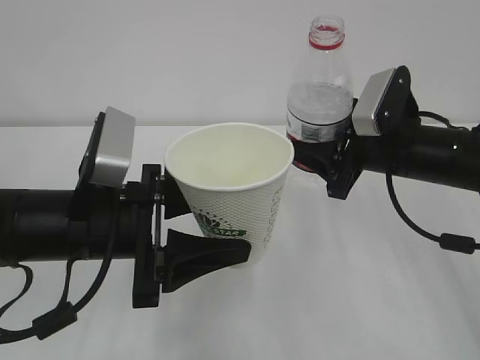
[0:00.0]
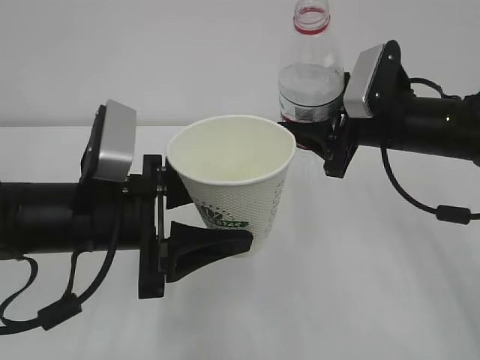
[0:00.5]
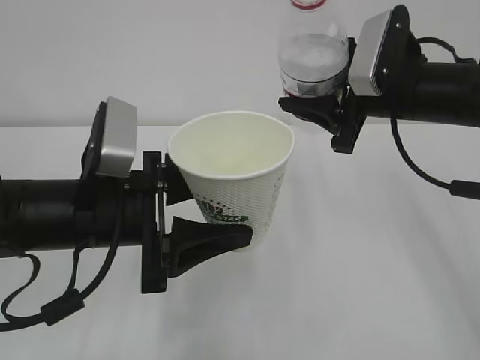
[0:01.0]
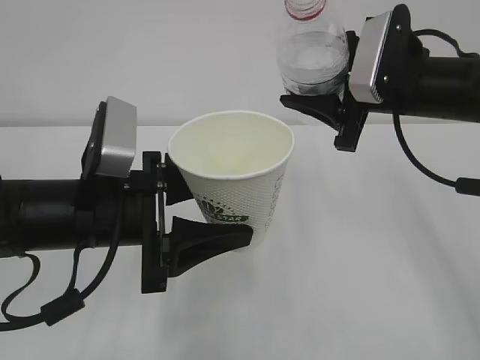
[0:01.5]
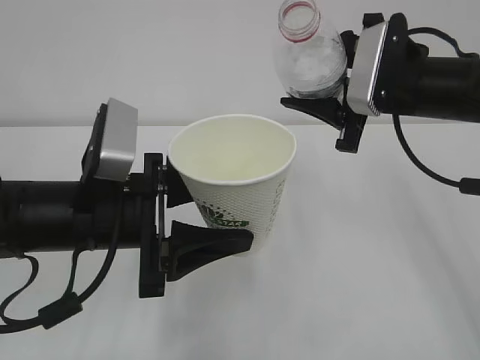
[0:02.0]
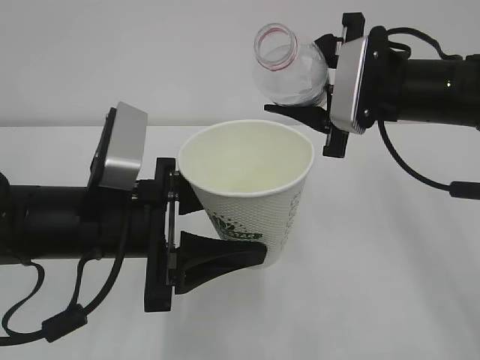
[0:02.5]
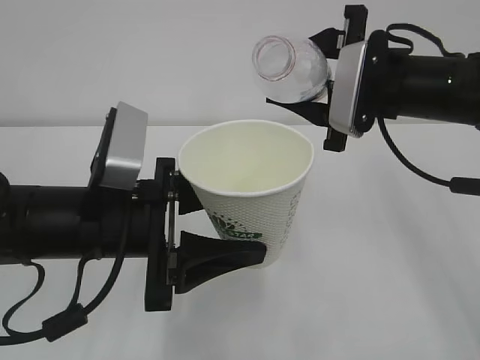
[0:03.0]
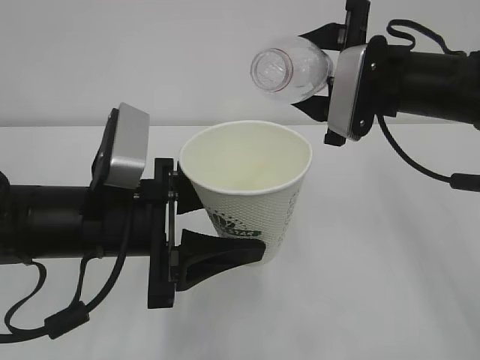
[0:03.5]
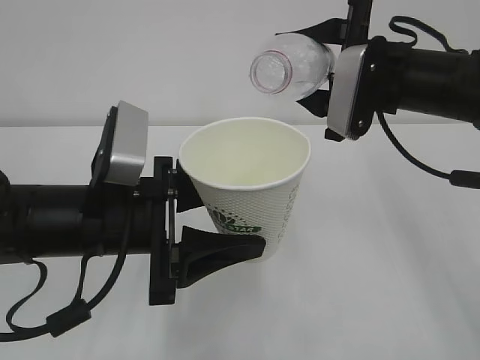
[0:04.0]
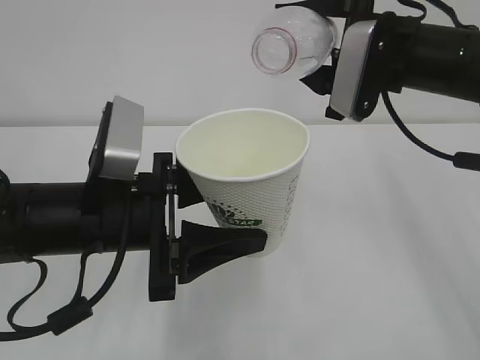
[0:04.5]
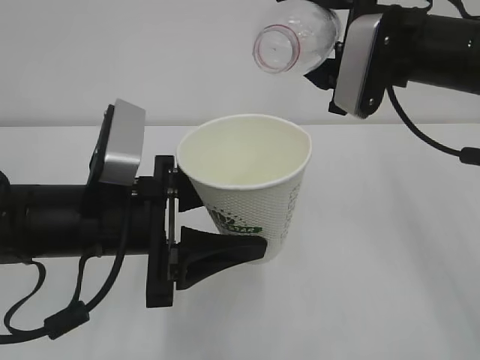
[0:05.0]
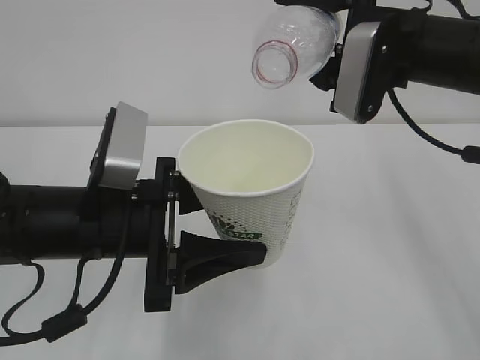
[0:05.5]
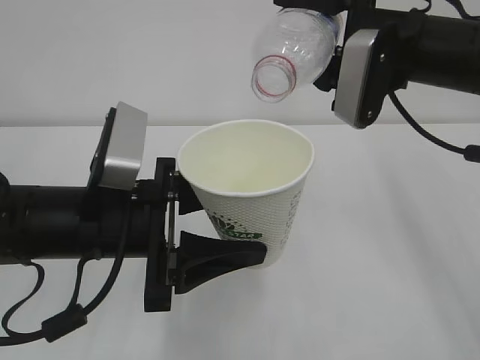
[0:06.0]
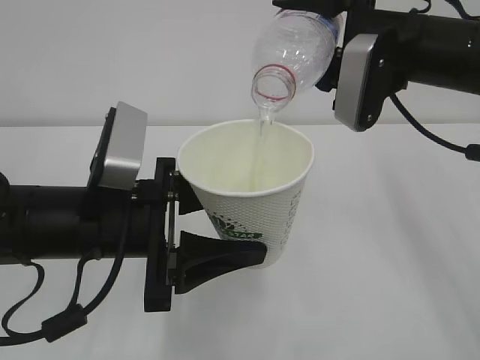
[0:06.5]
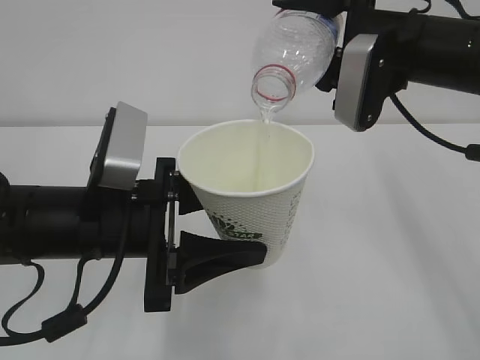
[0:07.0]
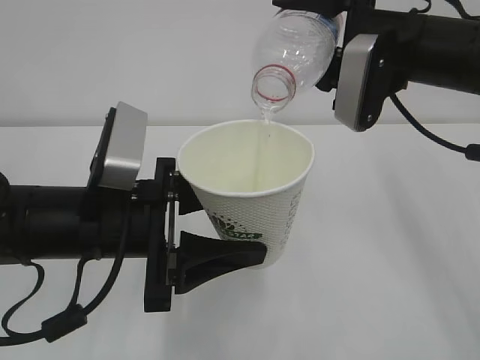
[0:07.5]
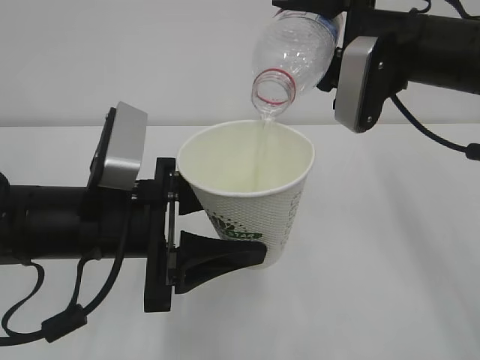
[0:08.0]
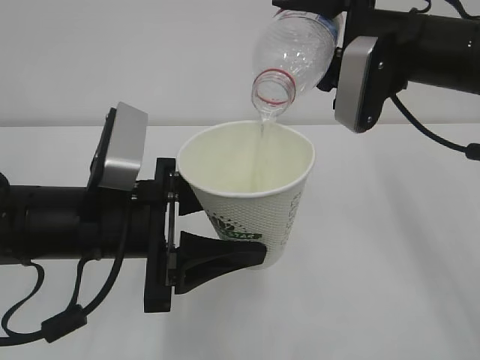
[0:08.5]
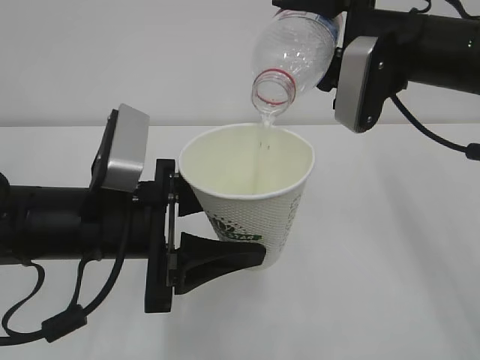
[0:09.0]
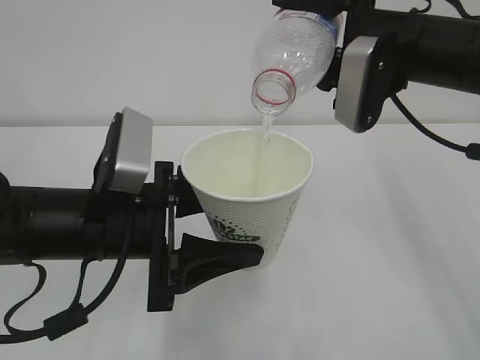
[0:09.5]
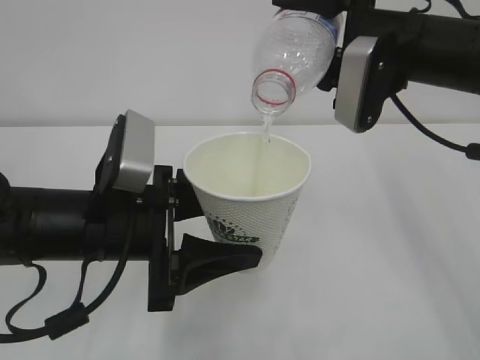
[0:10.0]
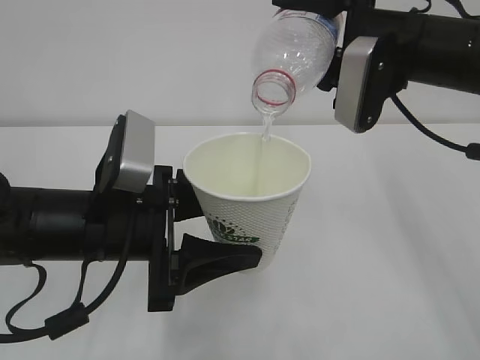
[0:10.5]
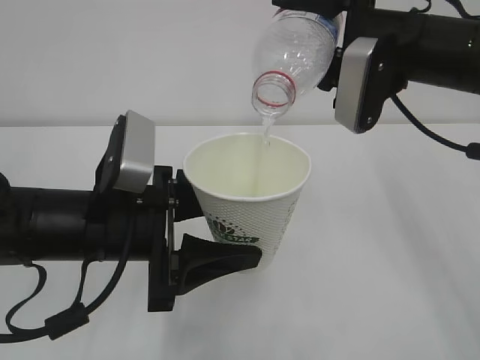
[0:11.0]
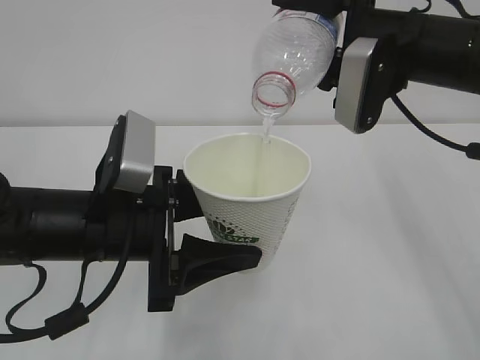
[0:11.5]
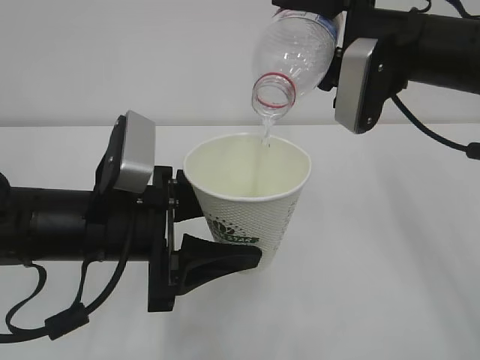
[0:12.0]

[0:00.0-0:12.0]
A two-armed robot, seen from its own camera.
0:00.0 to 0:02.0: The right gripper heads upward, covering approximately 5 cm.
0:04.0 to 0:06.0: There are only small adjustments of the grippers.
0:06.0 to 0:08.0: The two grippers keep their place.
0:08.0 to 0:10.0: The grippers move only a little.
0:10.0 to 0:12.0: Both grippers stay about where they are.

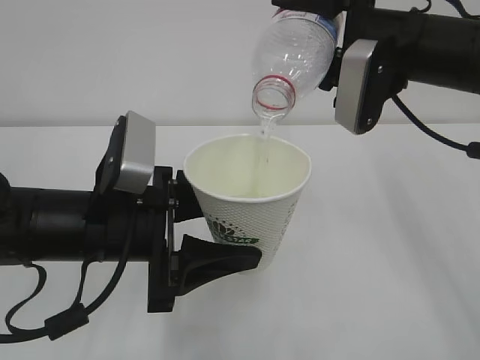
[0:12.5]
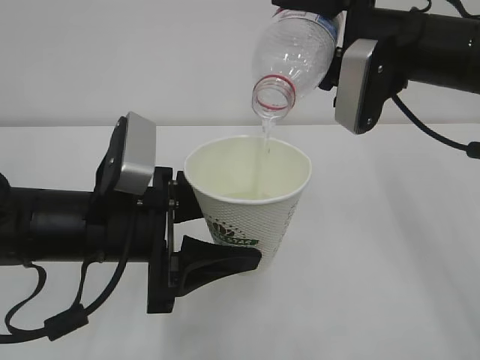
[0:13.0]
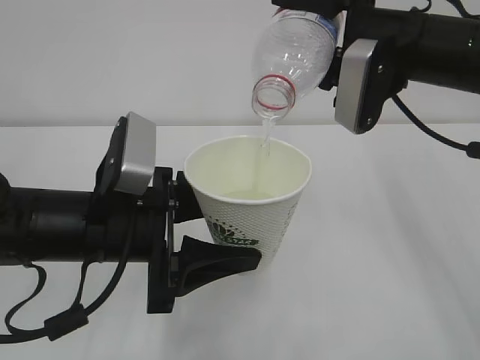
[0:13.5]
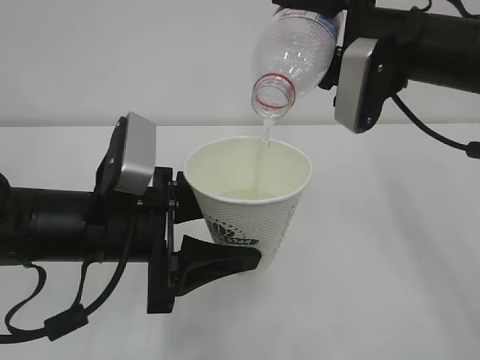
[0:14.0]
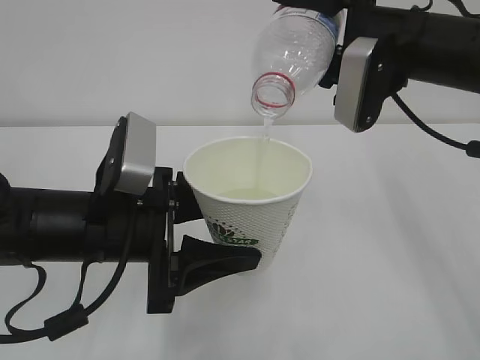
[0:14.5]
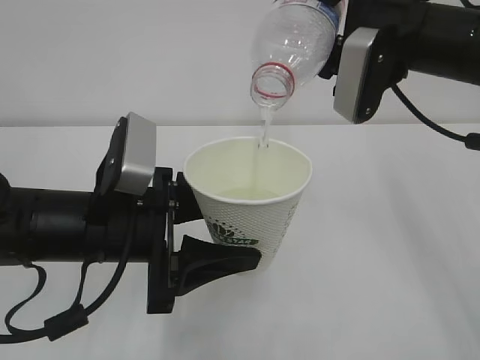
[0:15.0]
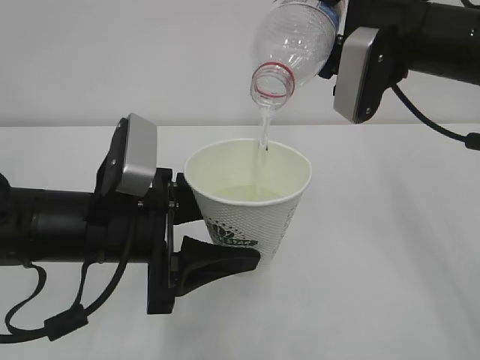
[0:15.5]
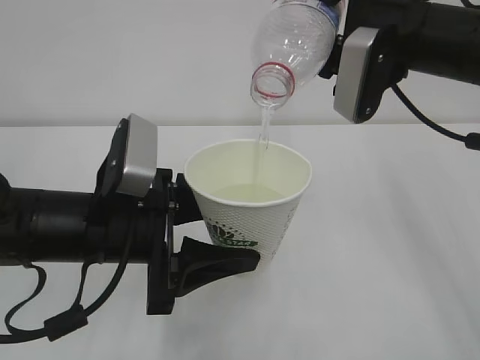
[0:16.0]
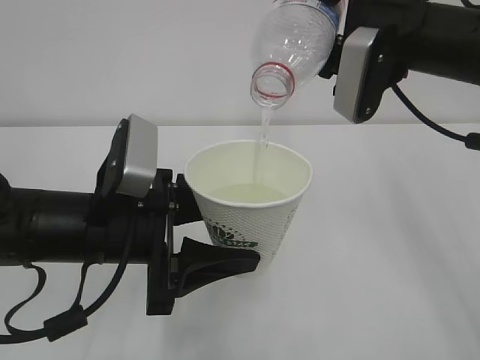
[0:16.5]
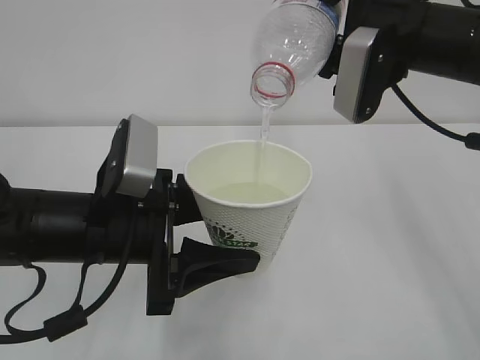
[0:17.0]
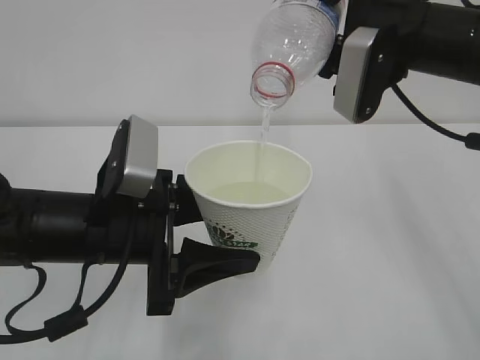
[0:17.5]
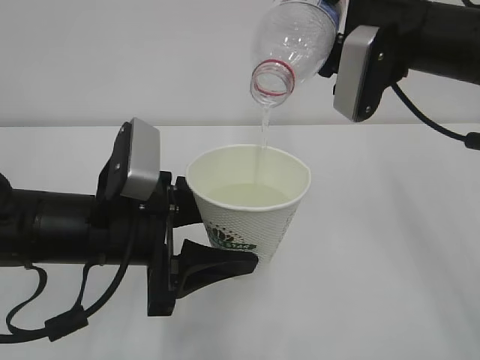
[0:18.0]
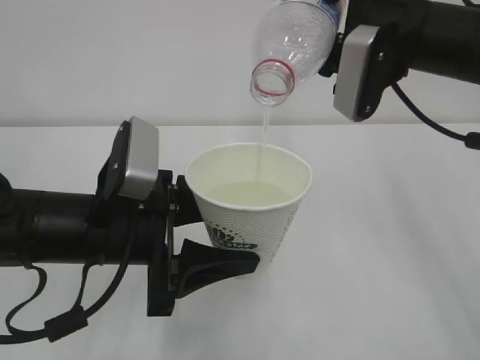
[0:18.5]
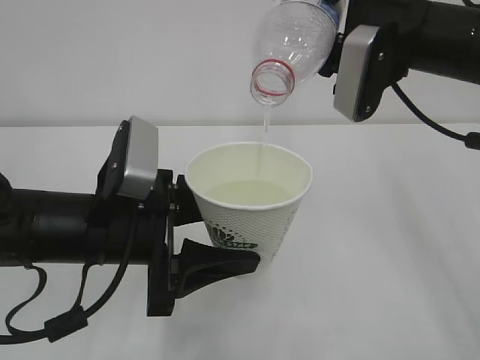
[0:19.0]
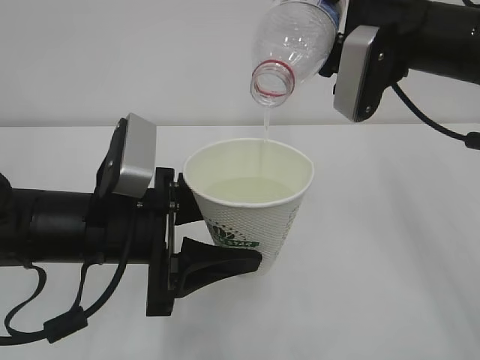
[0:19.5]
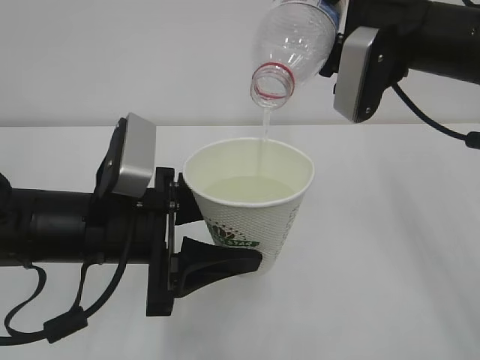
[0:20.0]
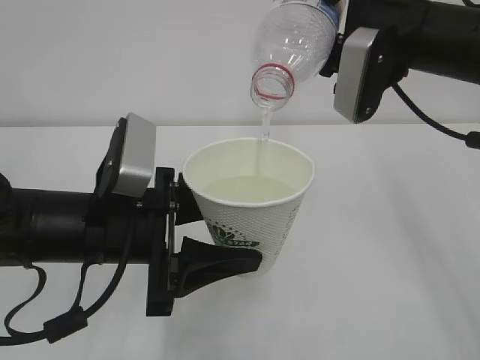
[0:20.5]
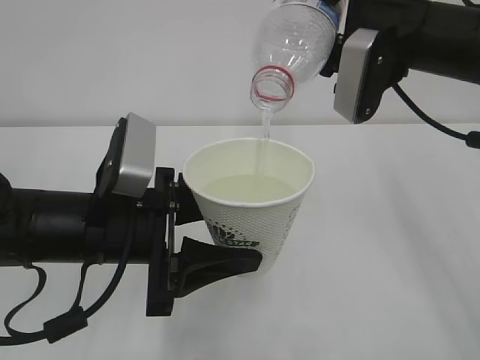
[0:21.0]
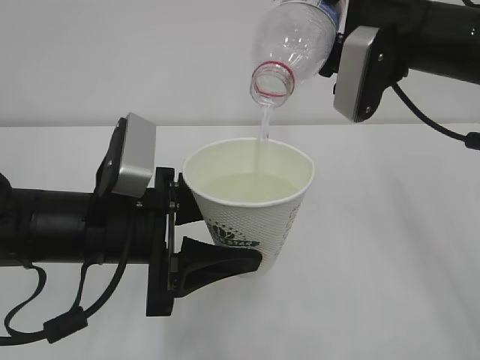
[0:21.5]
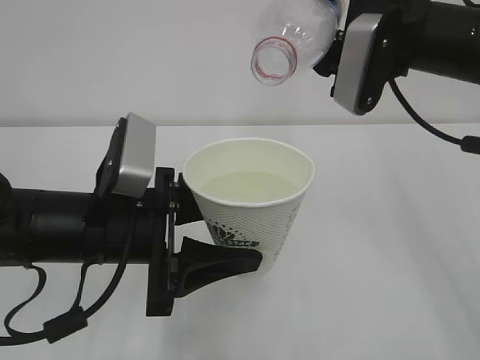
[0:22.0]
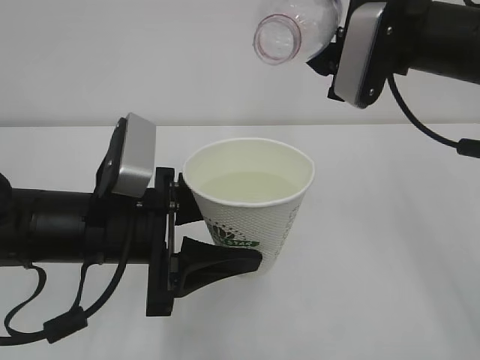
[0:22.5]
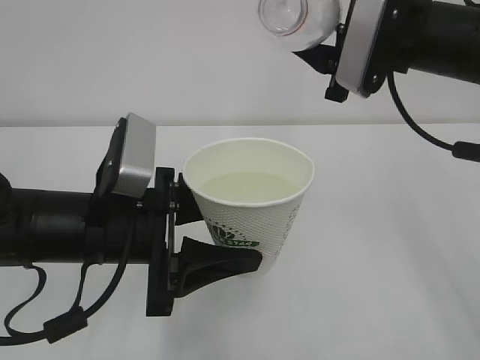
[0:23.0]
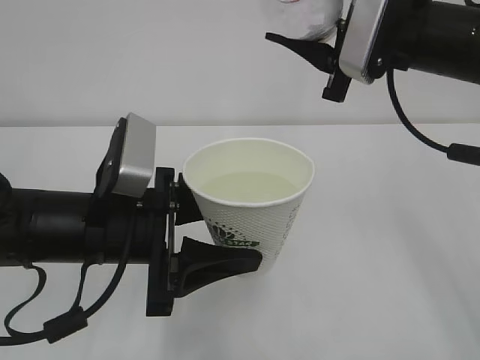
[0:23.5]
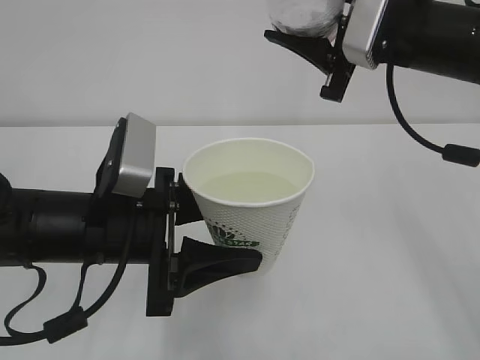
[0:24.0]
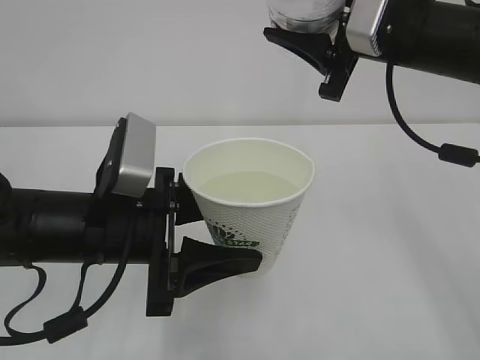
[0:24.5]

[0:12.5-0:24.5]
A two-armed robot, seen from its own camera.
0:12.5 to 0:20.5: The two grippers keep their place.
0:20.5 to 0:22.5: The grippers make only small movements.

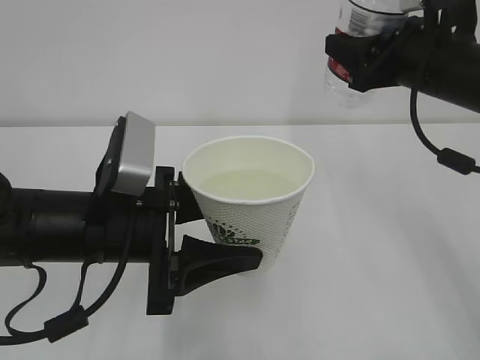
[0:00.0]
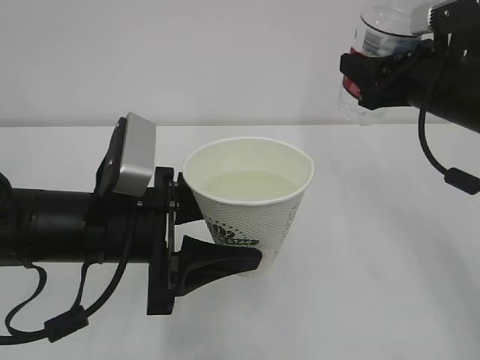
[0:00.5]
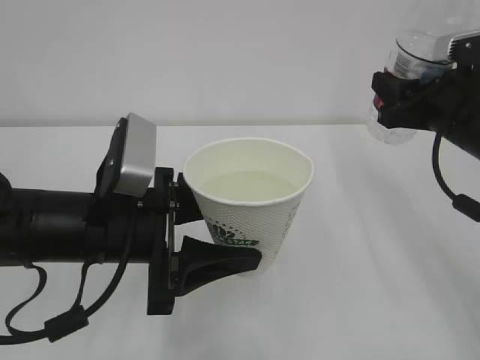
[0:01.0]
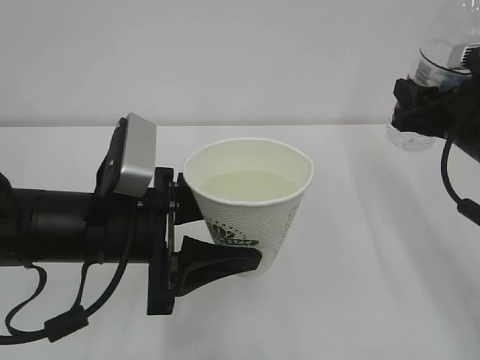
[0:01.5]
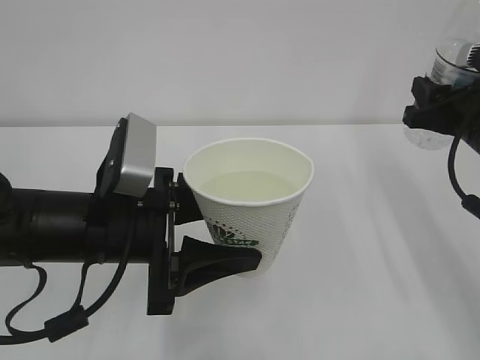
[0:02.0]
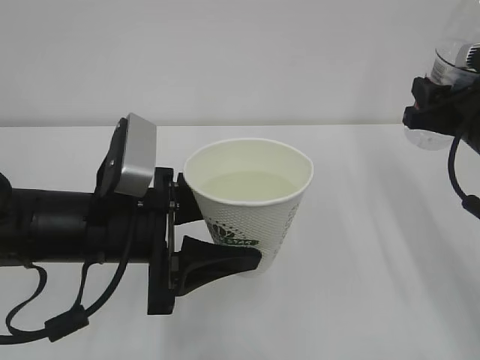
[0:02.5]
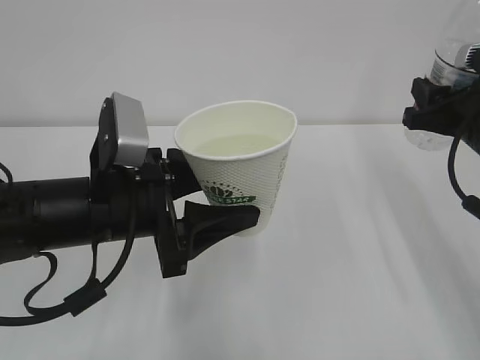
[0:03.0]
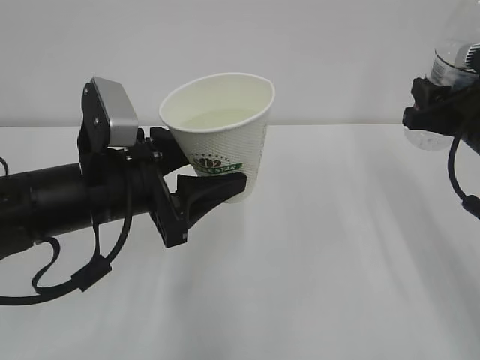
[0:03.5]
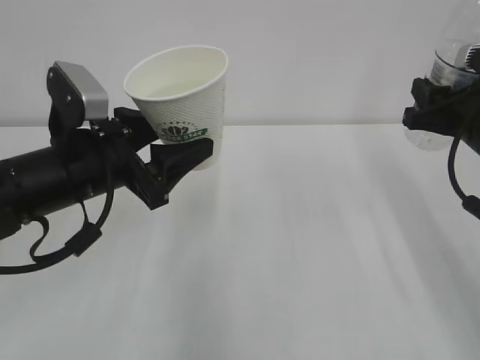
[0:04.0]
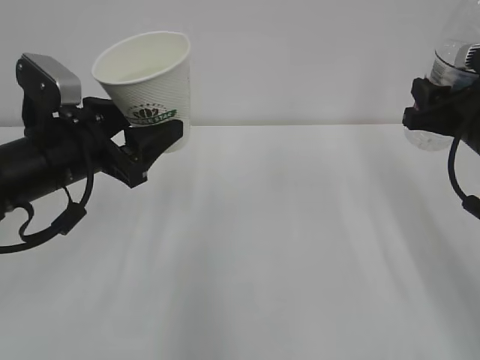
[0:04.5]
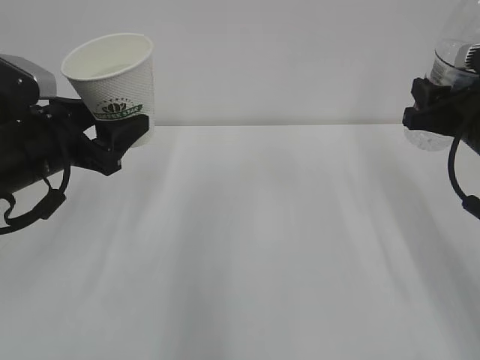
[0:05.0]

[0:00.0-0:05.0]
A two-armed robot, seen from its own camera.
0:00.0 to 0:02.5: The right gripper shifts about 10 cm downward and to the right.
0:02.5 to 0:05.0: The left gripper moves to the left and forward, about 15 cm.
